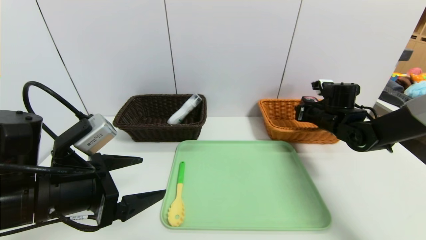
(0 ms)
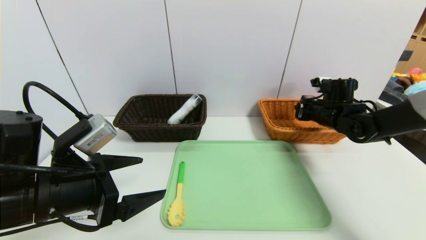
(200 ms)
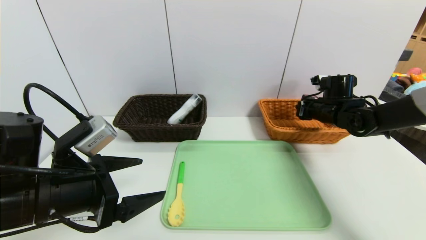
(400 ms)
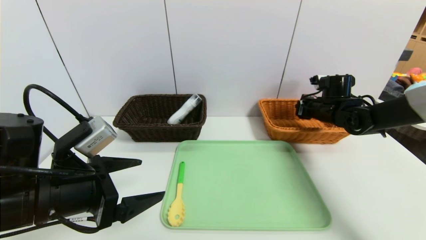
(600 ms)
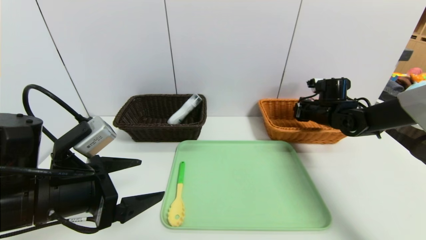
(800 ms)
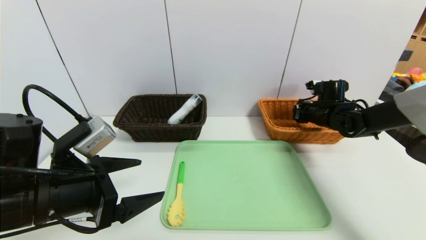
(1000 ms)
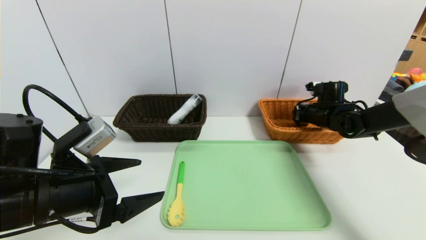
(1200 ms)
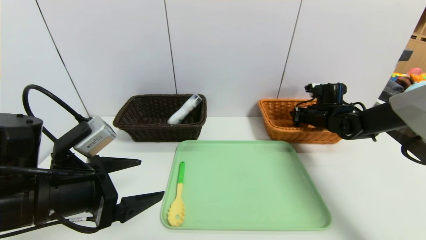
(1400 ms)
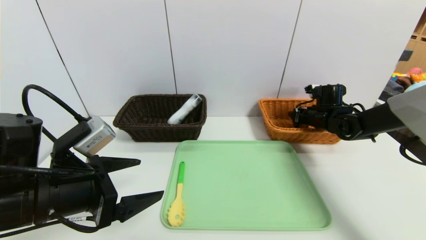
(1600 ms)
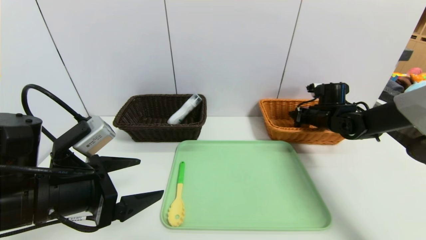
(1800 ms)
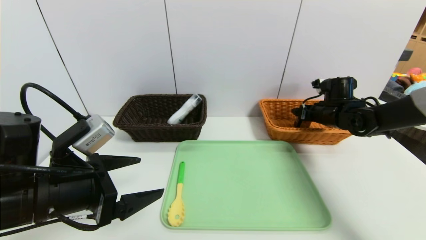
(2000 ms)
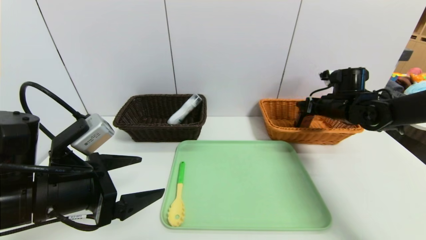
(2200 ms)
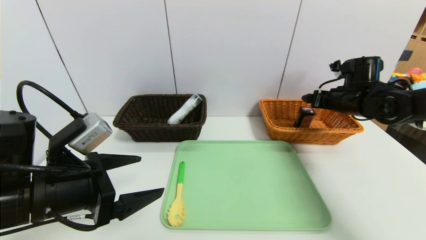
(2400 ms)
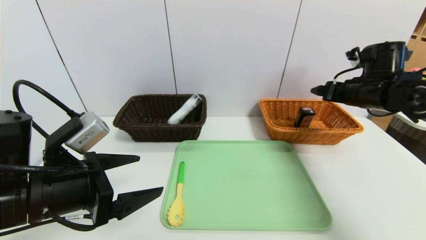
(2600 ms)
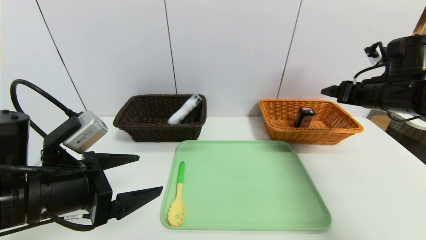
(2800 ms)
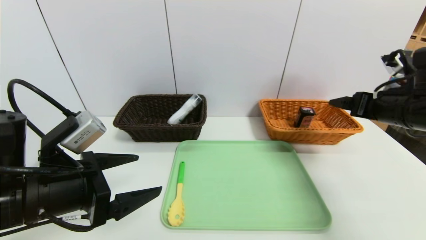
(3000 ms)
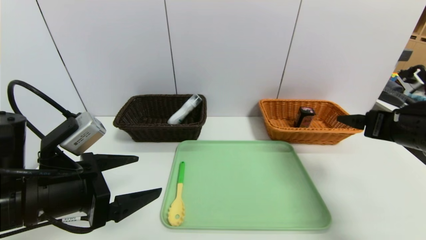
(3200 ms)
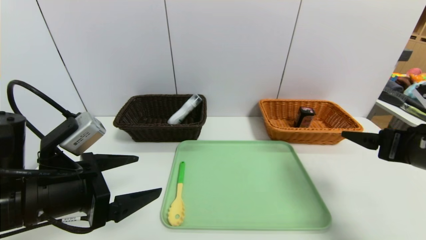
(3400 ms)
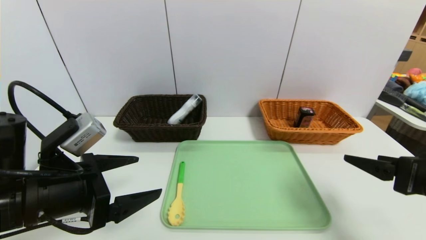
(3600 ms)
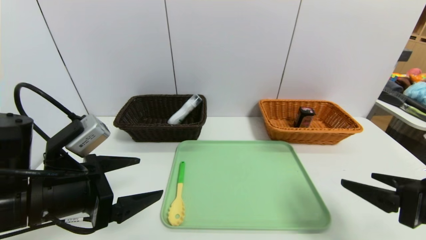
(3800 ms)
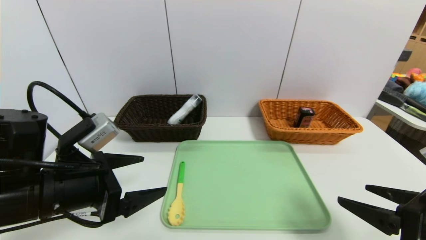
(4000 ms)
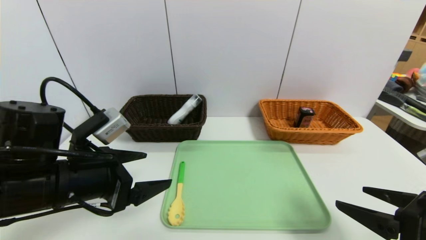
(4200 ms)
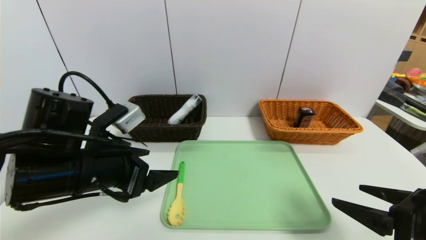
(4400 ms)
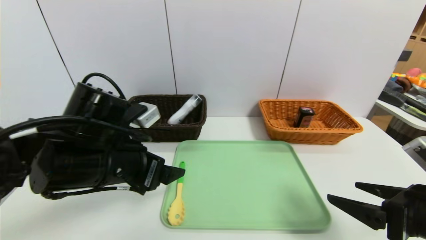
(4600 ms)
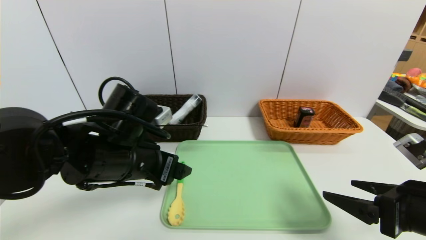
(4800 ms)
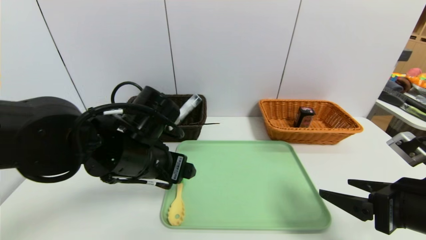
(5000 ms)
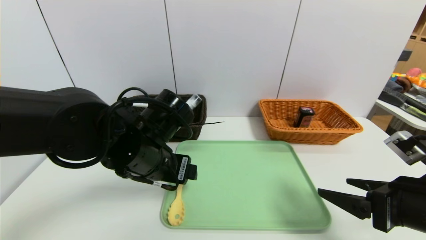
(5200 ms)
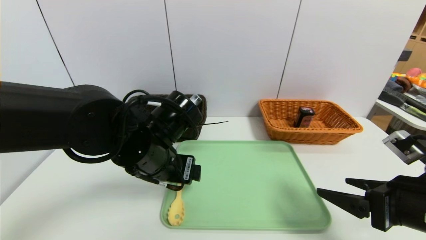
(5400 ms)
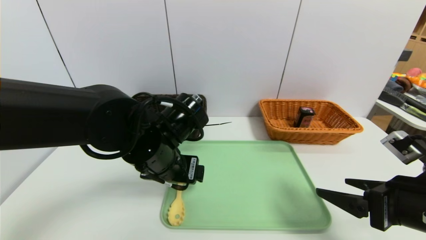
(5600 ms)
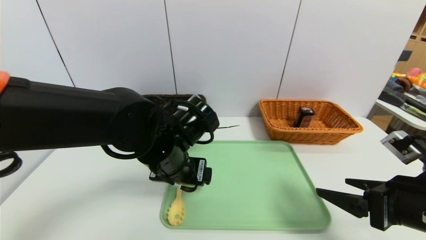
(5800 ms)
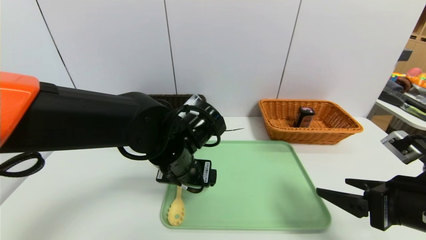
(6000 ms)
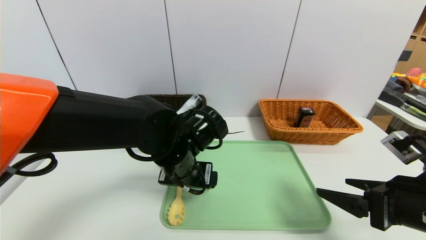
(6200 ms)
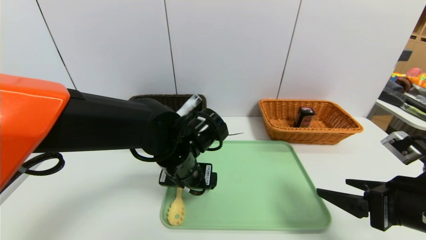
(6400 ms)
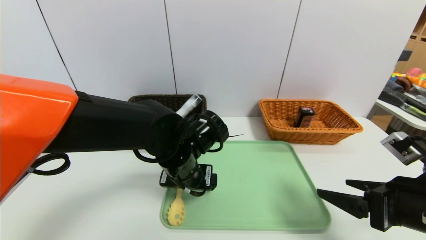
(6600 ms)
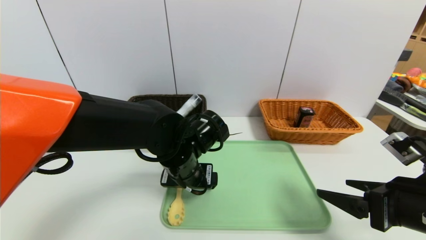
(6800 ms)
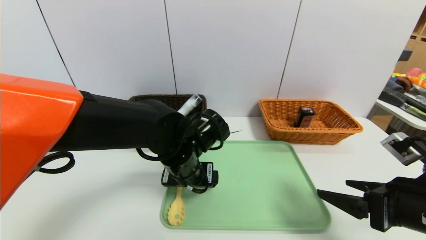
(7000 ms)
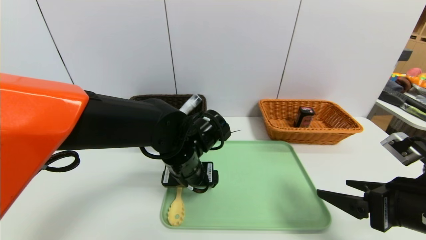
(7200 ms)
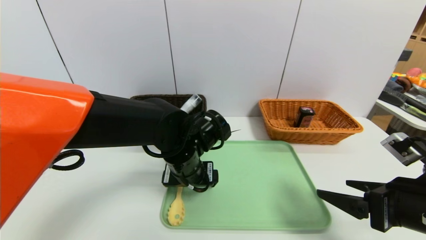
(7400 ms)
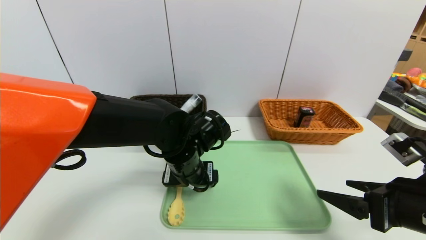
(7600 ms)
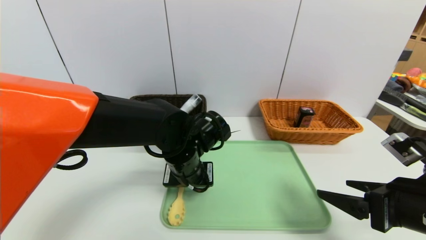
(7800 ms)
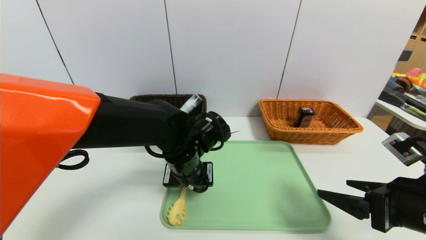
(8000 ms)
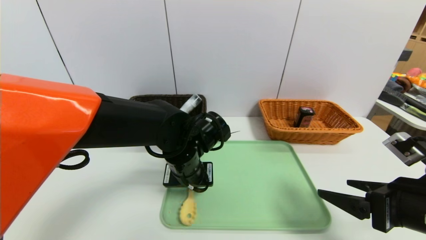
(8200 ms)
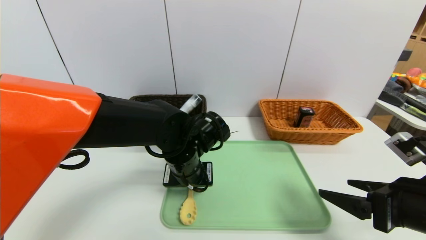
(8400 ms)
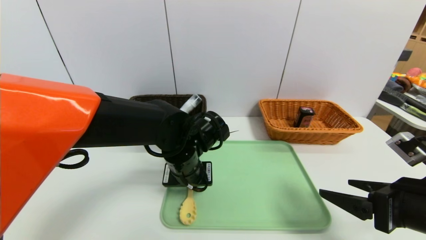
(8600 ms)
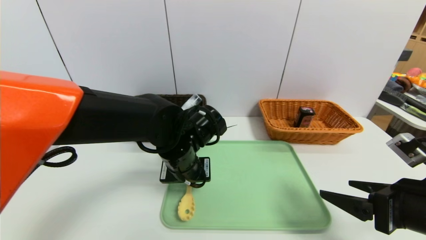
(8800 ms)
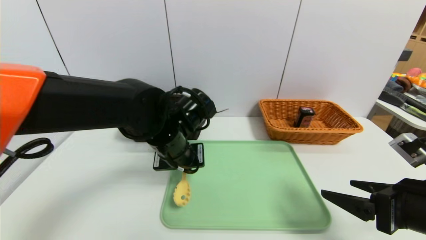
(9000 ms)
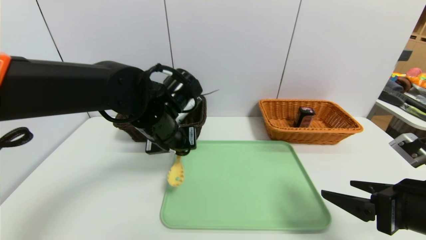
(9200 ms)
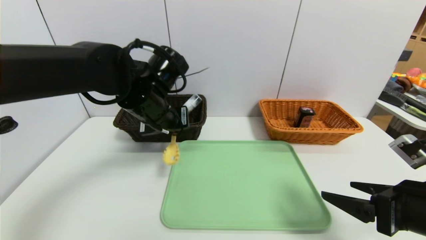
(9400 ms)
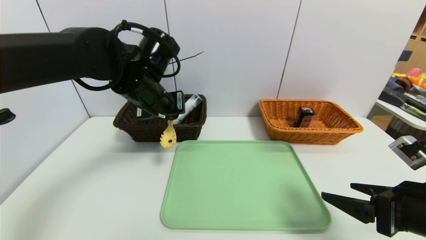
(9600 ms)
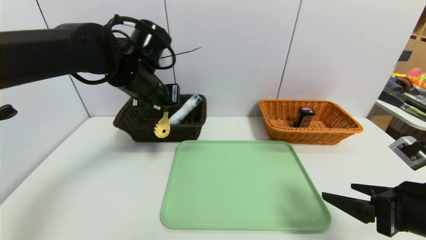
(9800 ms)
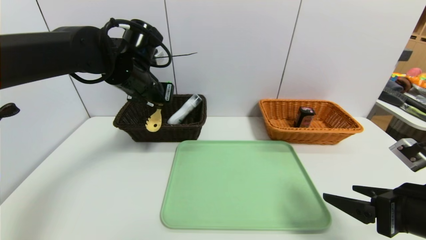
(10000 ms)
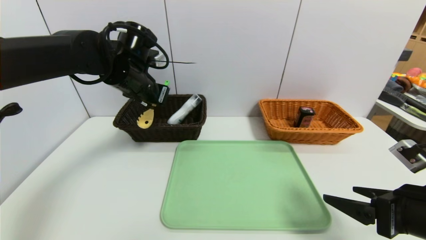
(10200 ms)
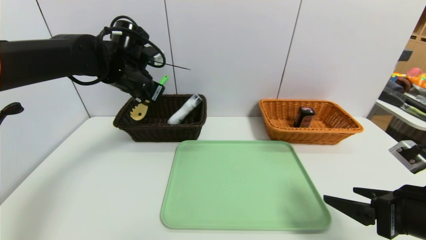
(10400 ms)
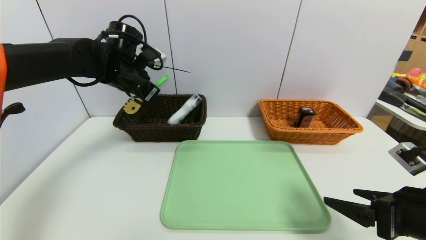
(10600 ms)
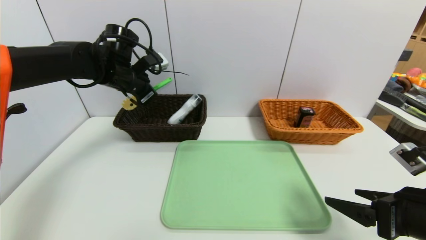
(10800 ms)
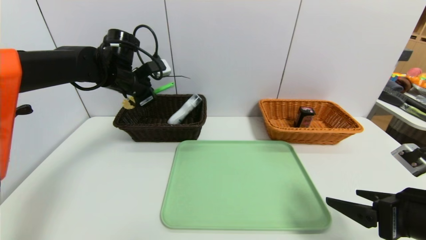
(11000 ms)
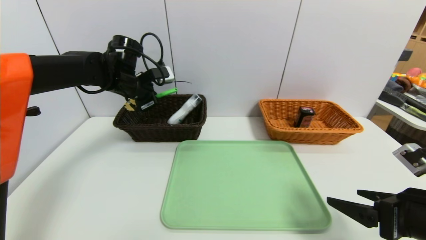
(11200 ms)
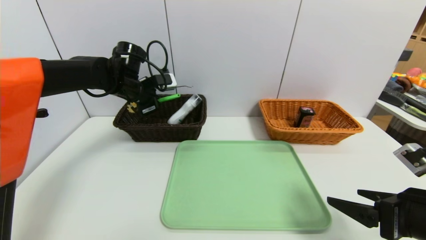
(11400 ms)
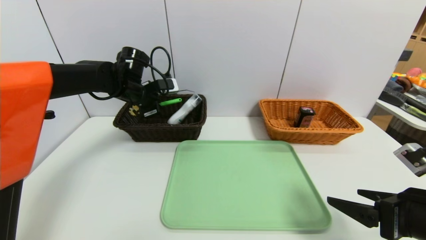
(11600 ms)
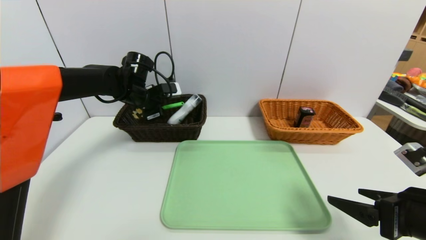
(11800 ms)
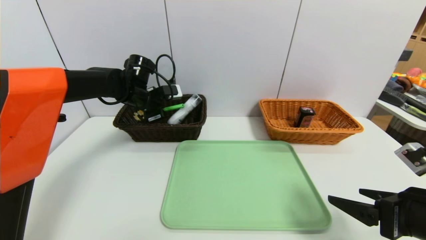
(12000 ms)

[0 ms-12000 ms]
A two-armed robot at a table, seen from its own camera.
Task of the whole recording: place the food in the right basket with the right gripper, and place the non food items in the left basket with the left gripper.
0 ms to 1600 ms: The right gripper opens.
1600 ms to 3000 ms: The right gripper goes roughly 20 cm backward and upward, and opens up.
3000 ms to 4400 ms: The right gripper moves backward and downward, some 15 cm. The left gripper ends up about 5 cm from where it was.
4400 ms to 6000 ms: The left gripper is displaced to the right and forward by approximately 15 cm.
6000 ms to 7600 ms: The grippers move only a little.
7600 ms to 9000 ms: The left gripper closes.
9000 ms to 10400 ms: The left gripper moves to the left, forward and upward, about 15 cm.
10400 ms to 12000 ms: The left gripper travels downward and forward by approximately 10 cm.

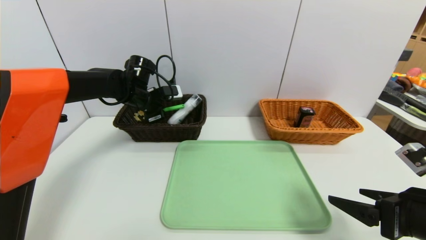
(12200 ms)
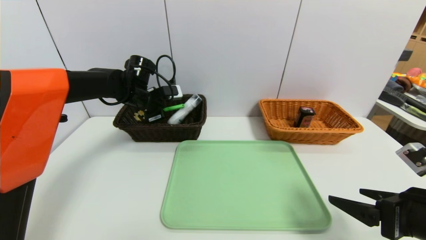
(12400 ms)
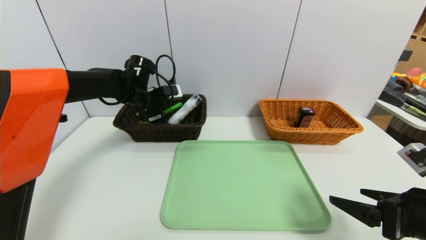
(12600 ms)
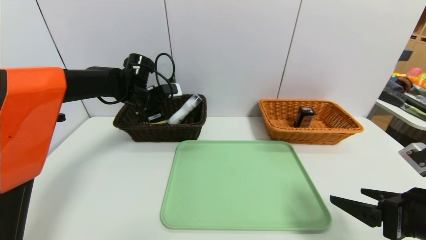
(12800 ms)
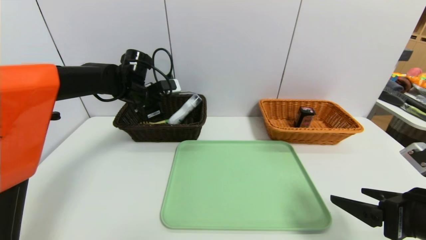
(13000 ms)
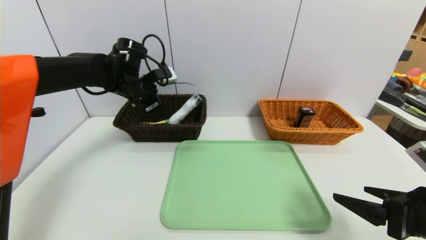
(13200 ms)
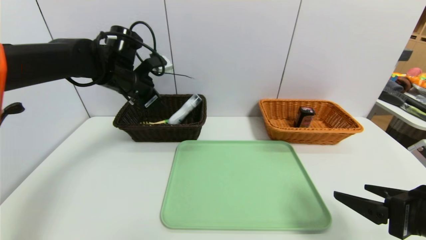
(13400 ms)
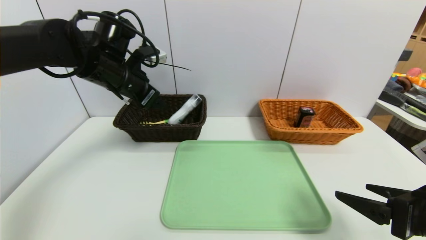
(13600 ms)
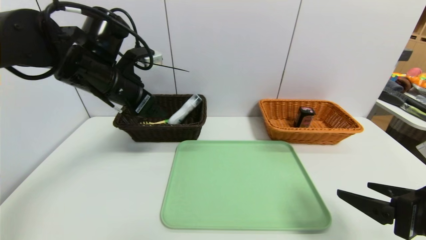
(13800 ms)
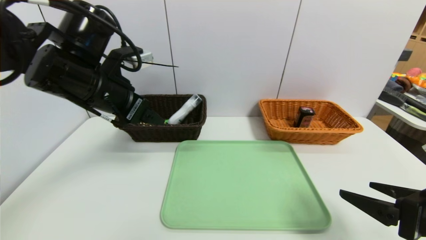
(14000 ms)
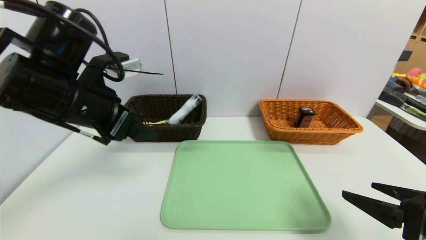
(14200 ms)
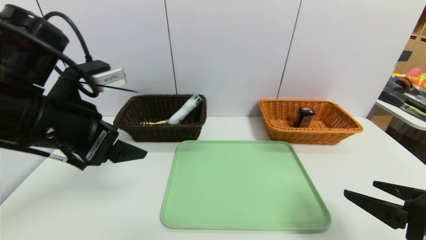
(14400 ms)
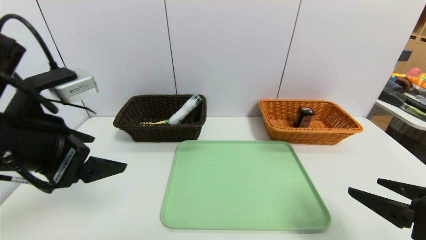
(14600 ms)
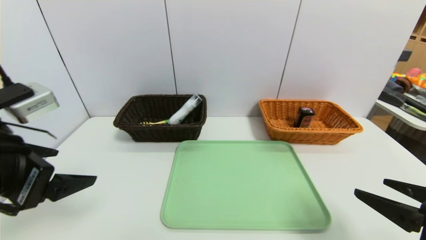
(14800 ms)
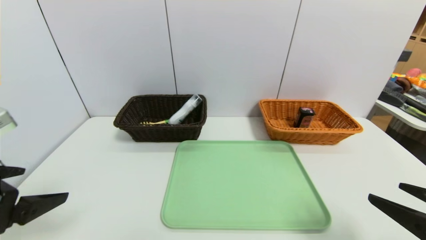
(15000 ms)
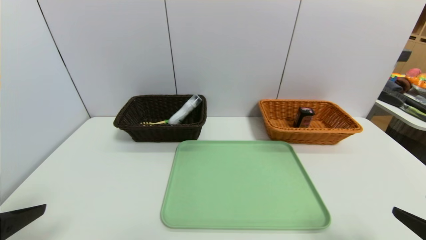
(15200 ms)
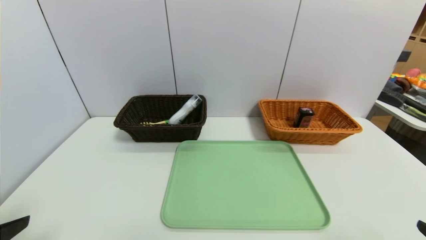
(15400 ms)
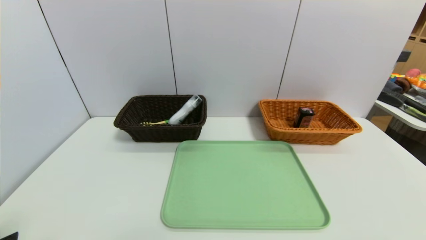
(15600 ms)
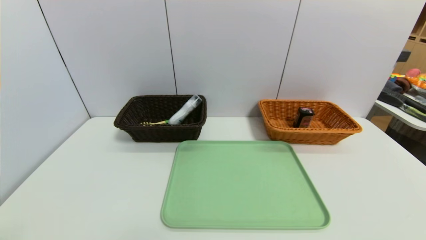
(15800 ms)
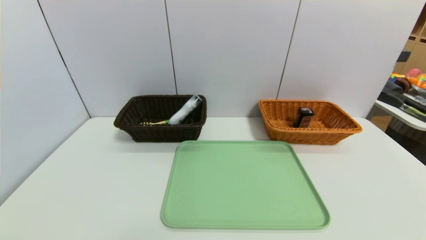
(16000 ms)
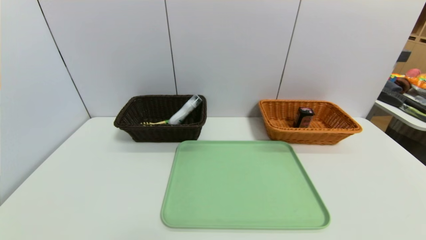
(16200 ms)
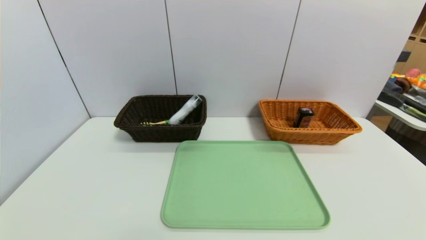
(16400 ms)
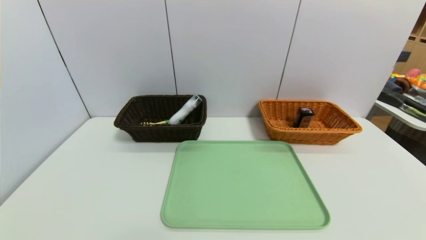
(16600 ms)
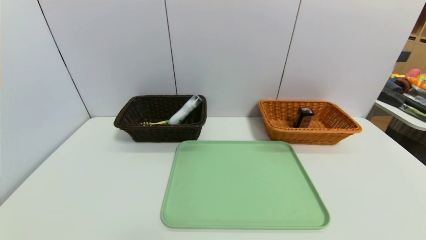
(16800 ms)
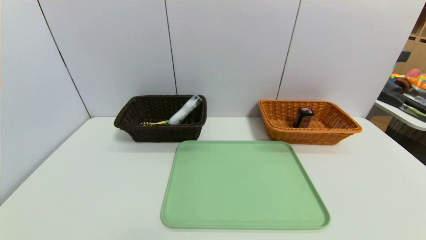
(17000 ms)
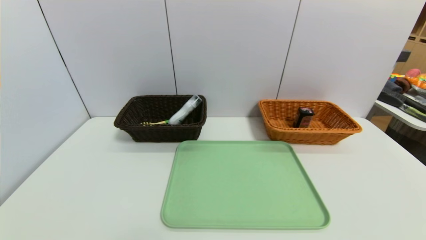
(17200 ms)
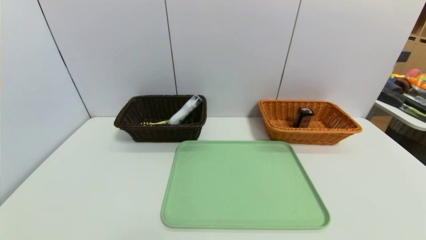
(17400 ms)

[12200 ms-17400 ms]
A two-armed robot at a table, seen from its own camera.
Task of the whole recording: place the food in the right basket with the right gripper, and place the non food items in the left basket with the left gripper.
12200 ms to 14000 ms: The left gripper heads backward and upward, covering some 20 cm, and opens.
14000 ms to 15600 ms: The left gripper travels backward and to the left by roughly 30 cm. The right gripper goes roughly 10 cm backward.
